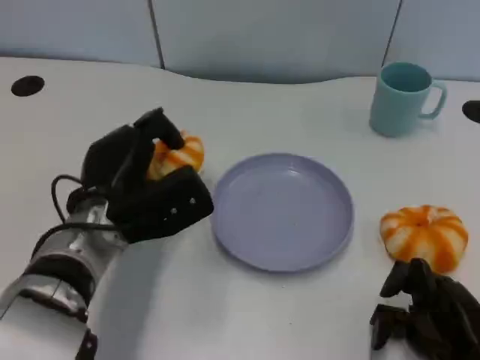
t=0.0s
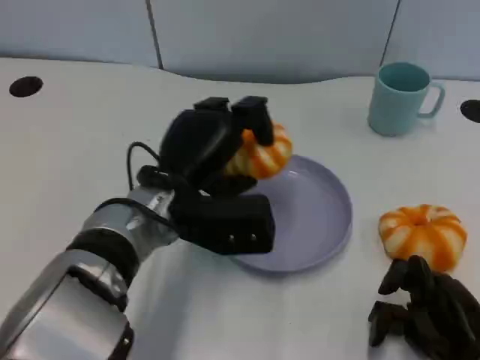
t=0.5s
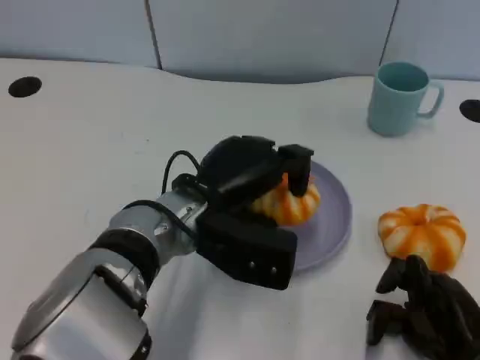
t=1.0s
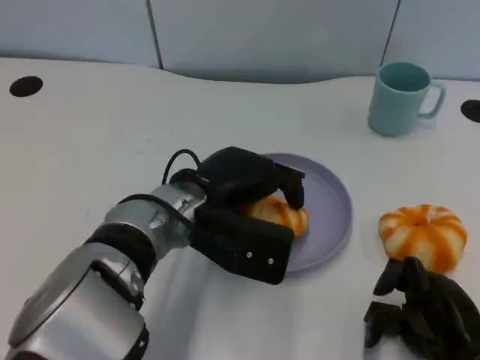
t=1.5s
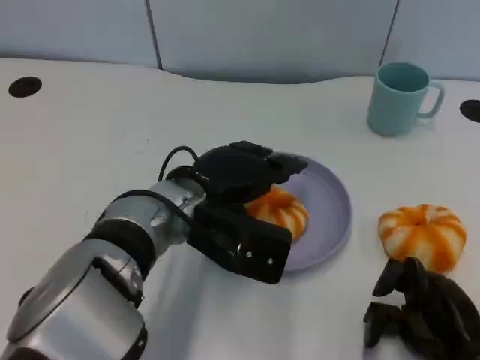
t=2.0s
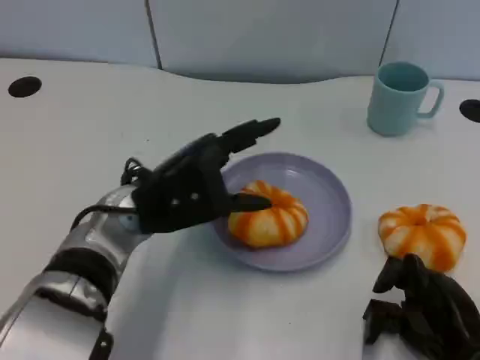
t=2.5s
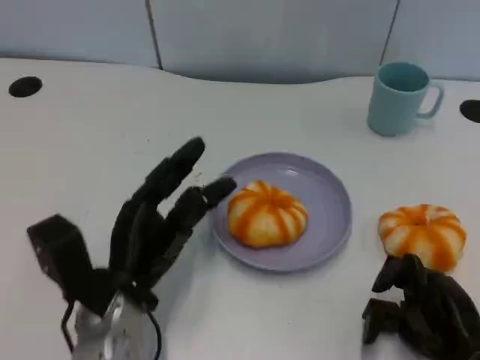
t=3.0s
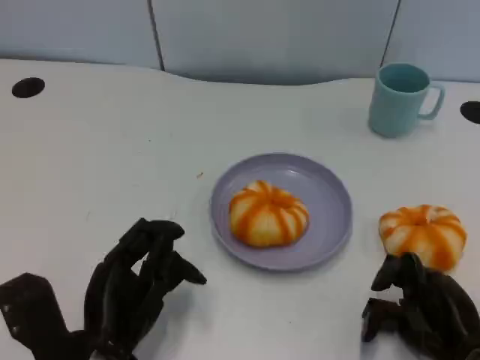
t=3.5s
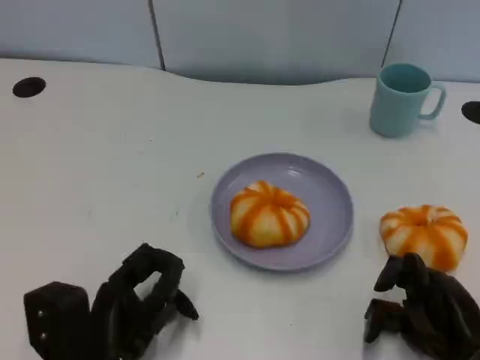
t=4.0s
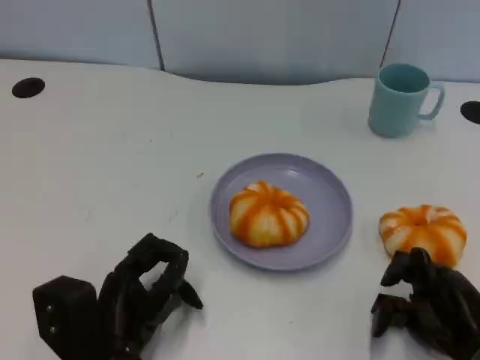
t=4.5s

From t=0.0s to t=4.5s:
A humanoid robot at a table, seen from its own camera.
Task of the whole recording: Grasp the bread from the table and place it into the plate.
From t=0.0s to t=2.0s: The left hand moves to the right, about 5 cm.
From t=2.0s to t=4.5s: The left hand travels backward, downward and to the left by about 15 cm.

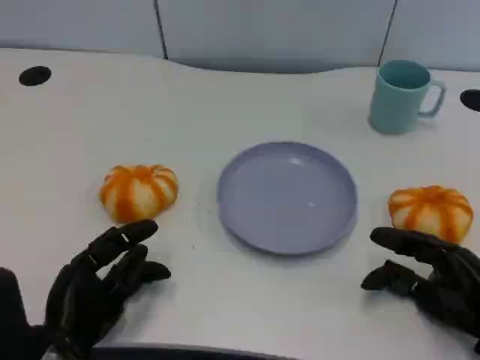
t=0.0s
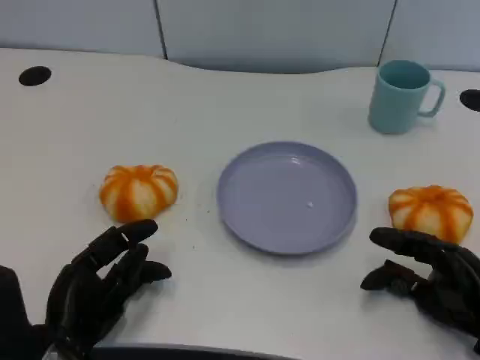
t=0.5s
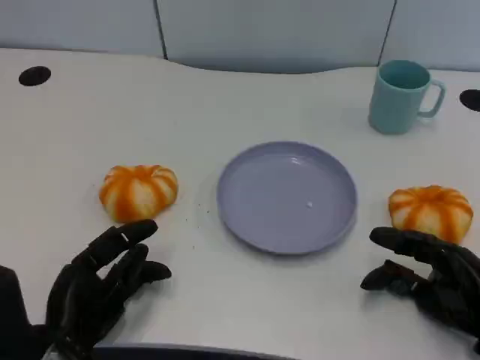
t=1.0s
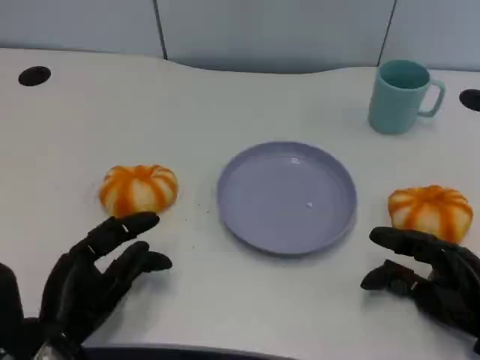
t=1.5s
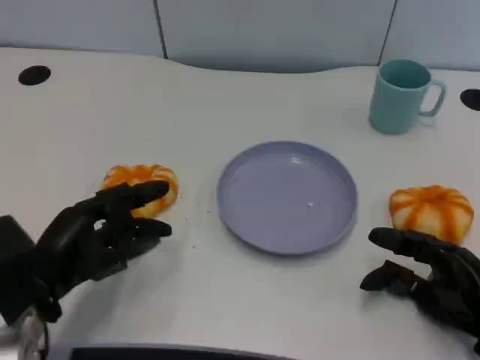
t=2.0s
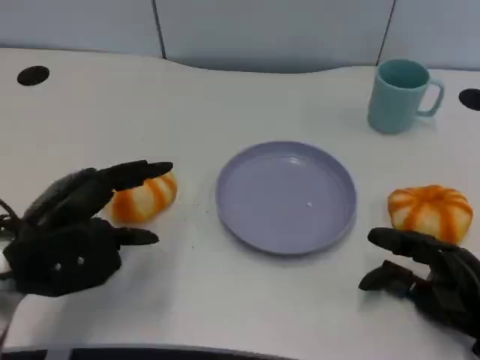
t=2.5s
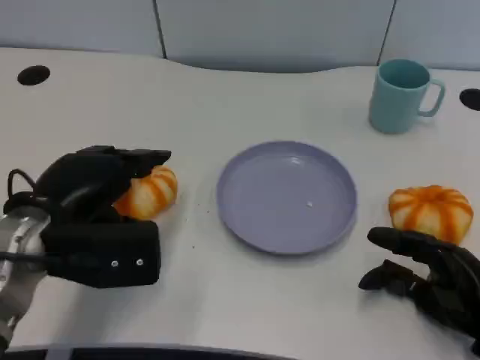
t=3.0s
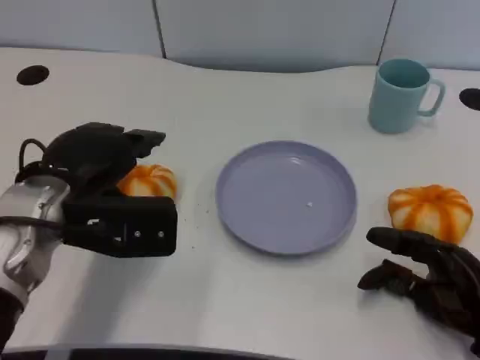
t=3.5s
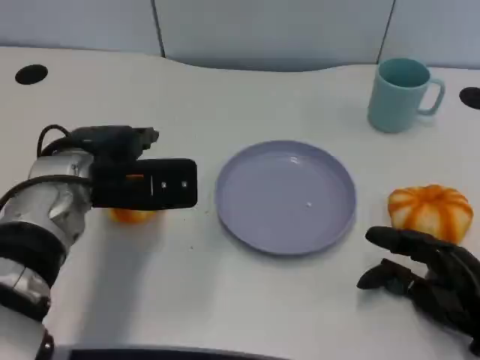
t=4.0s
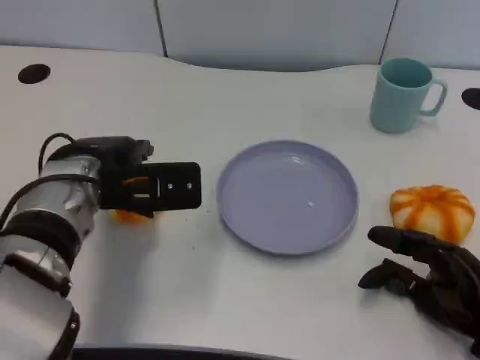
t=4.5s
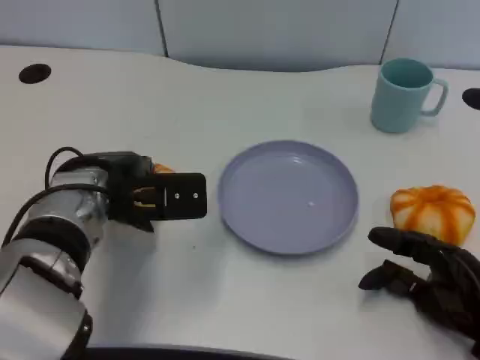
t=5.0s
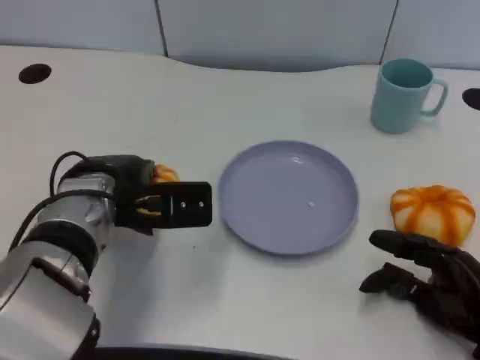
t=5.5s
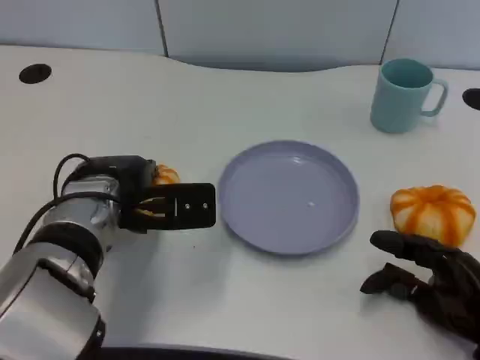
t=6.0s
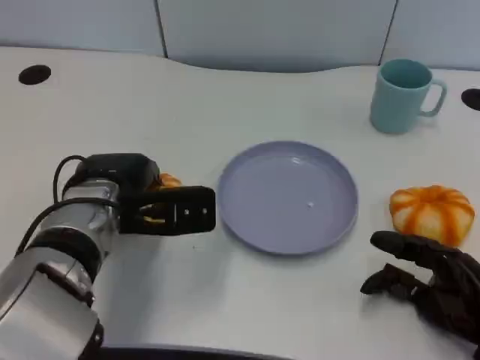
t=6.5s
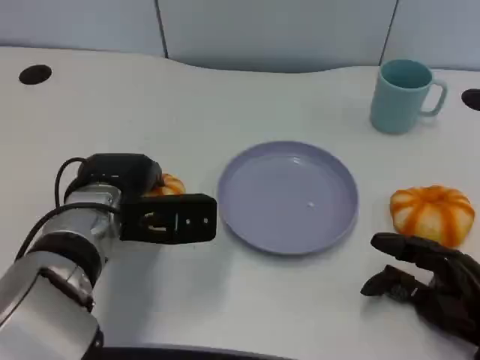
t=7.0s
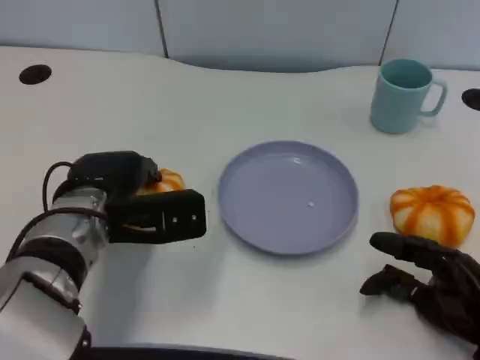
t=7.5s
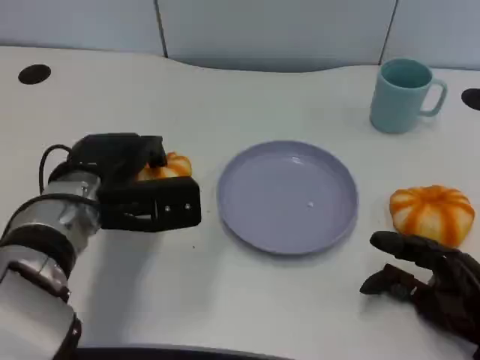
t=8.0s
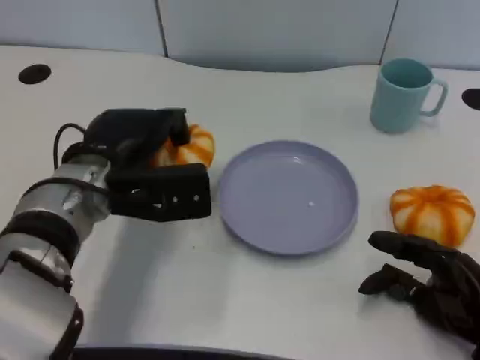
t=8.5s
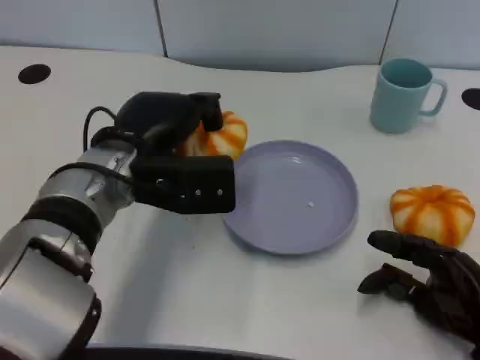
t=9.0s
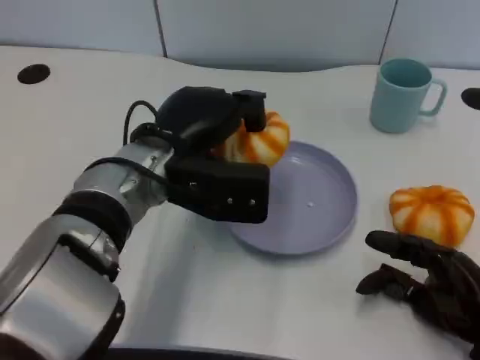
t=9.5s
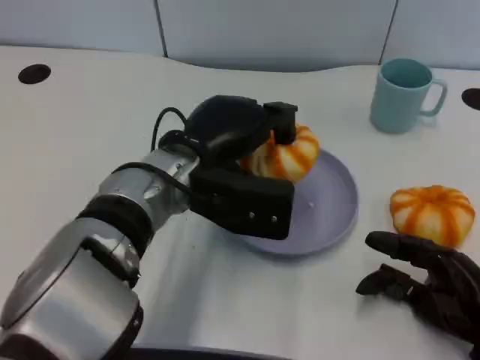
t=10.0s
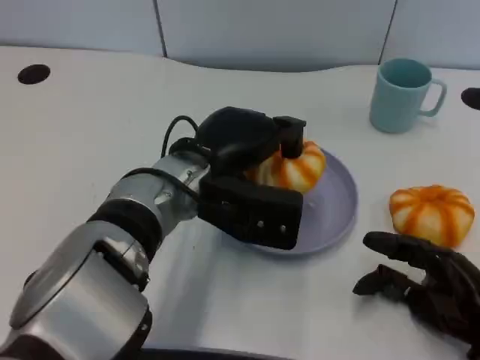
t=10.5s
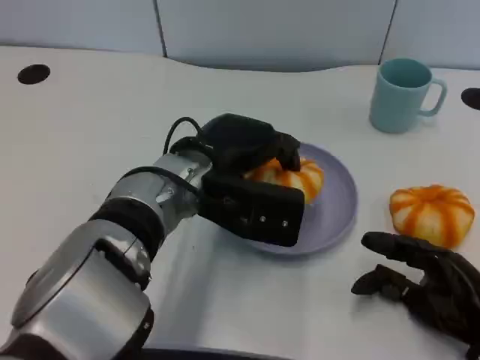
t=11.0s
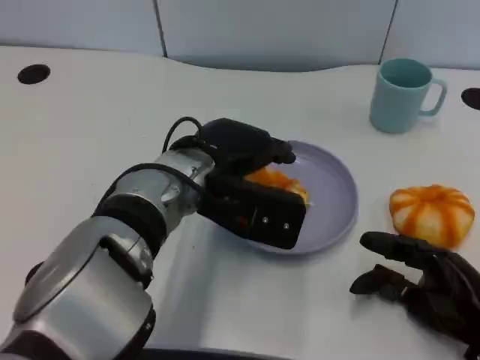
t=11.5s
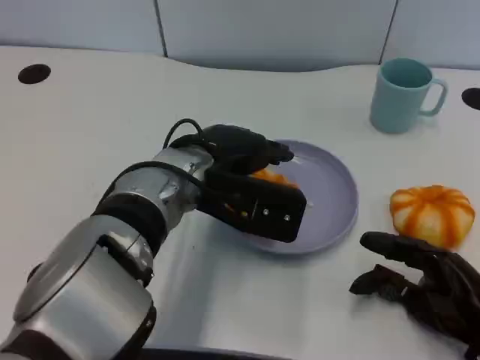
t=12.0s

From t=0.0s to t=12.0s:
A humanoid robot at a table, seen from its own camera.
Task of the whole recording: Grasp the bread from the table and place it into the plate.
From t=0.0s to t=2.0s: The left hand ends up approximately 5 cm from where it was.
From t=2.0s to t=4.0s: The left hand is displaced forward, upward and to the right by about 15 cm.
From t=4.0s to t=8.0s: The hands make only small movements.
From t=8.0s to t=10.0s: The left hand heads to the right, covering roughly 10 cm.

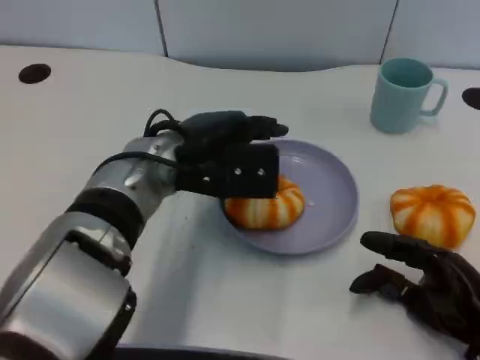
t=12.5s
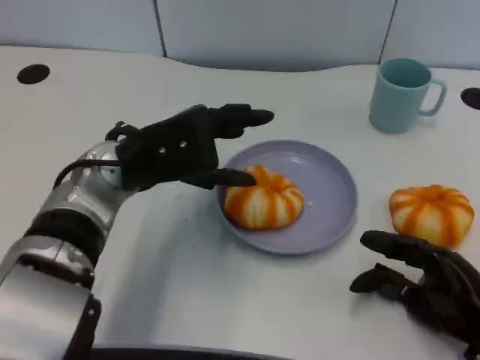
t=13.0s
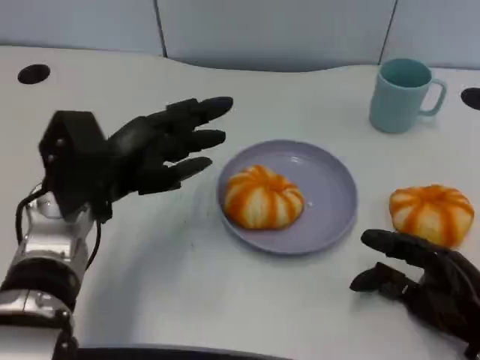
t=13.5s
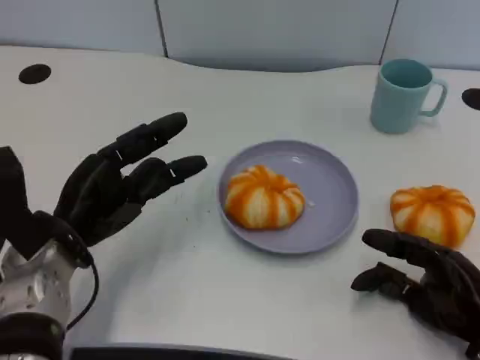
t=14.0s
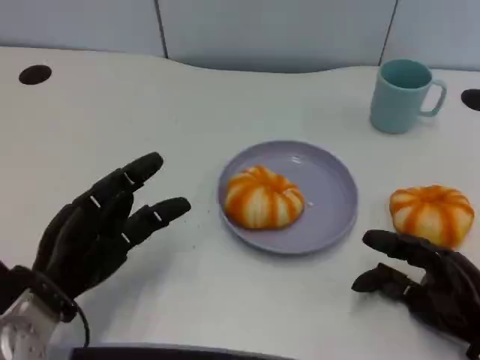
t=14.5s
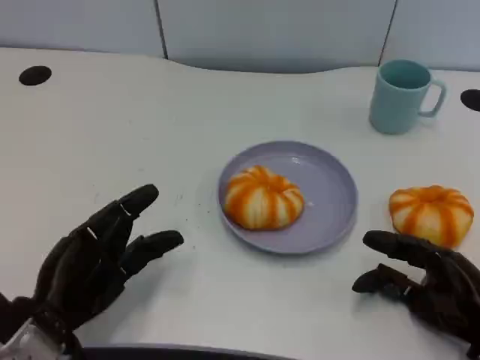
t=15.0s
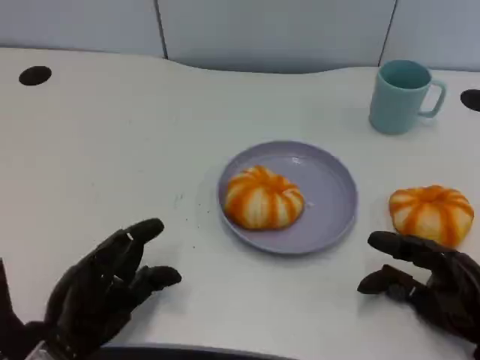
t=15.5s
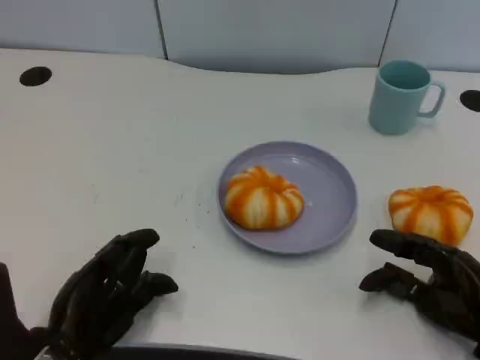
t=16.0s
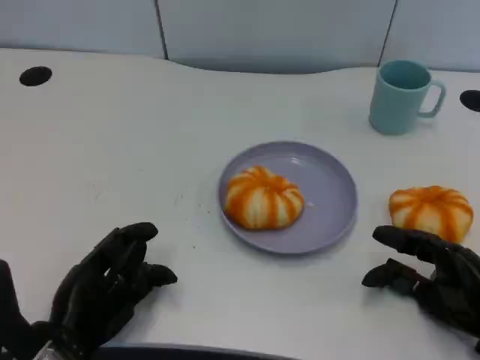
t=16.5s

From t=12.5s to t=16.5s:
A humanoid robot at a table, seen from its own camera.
Task of the whole recording: Grasp the bread from the table and place it into the plate.
From t=12.5s to t=14.5s: The left hand shifts some 20 cm to the left, downward and backward.
From t=14.5s to t=16.5s: The left hand changes place by some 5 cm.

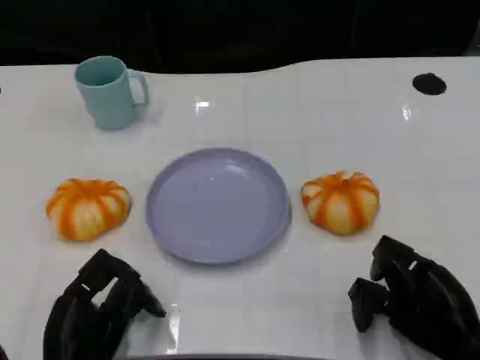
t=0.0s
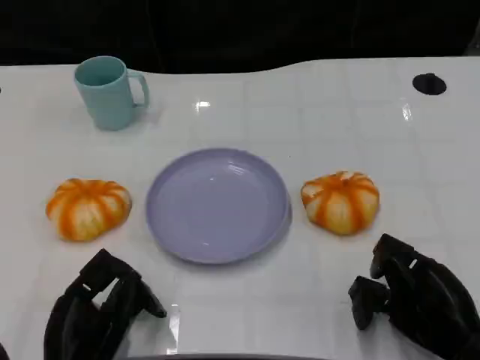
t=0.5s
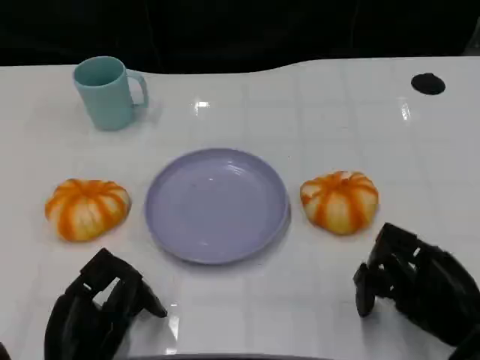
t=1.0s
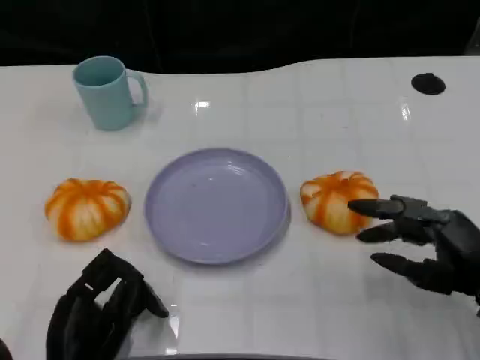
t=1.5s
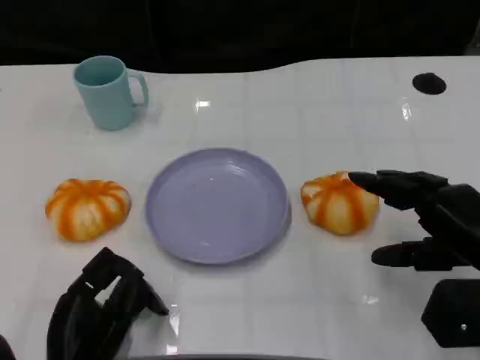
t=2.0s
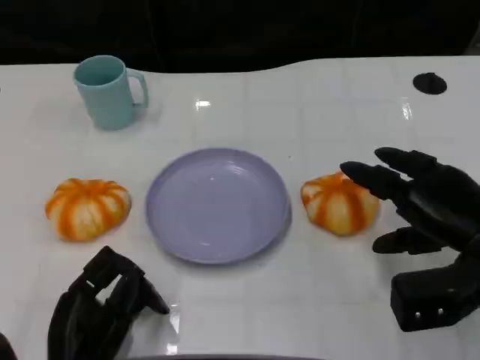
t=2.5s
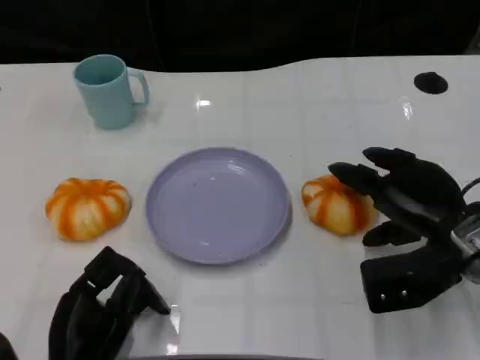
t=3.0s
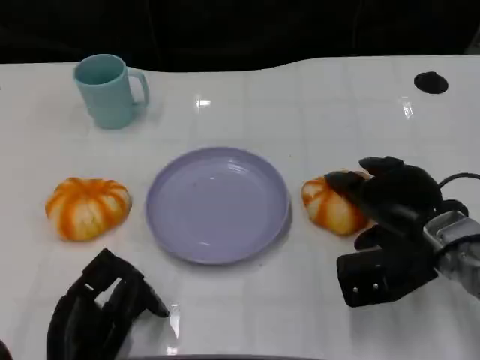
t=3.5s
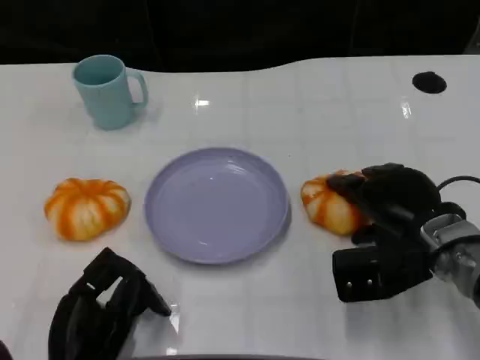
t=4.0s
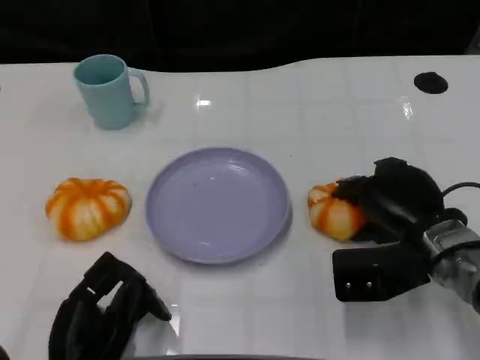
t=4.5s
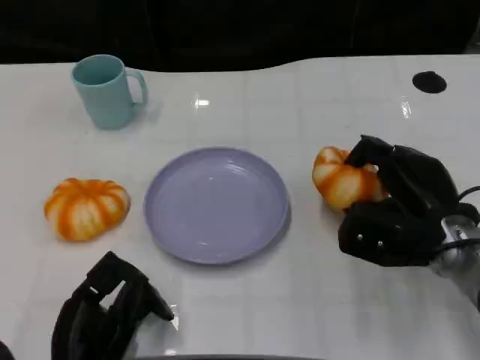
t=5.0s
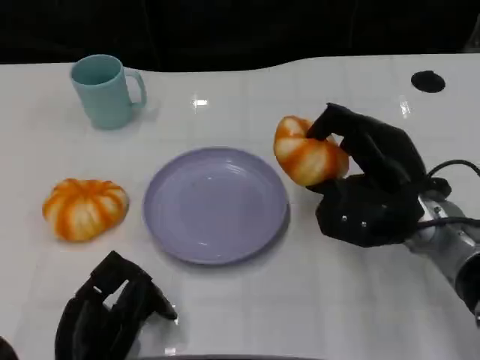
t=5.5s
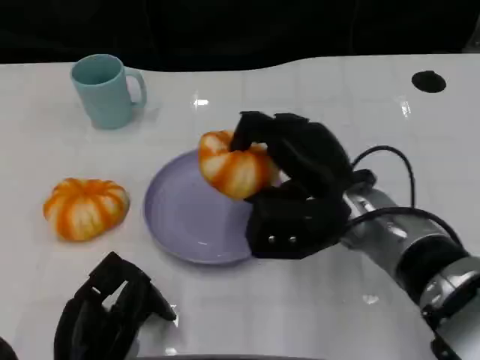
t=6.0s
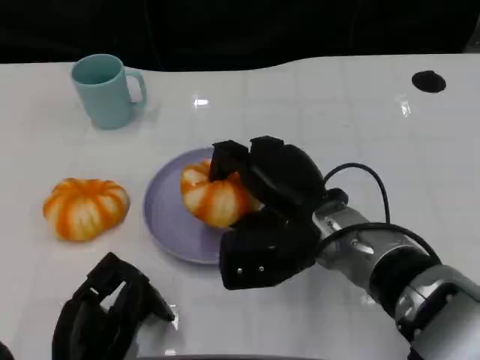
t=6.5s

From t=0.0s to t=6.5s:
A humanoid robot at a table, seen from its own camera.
Task of the whole recording: Grasp the bread from the table and place it into the plate.
From t=0.0s to t=2.0s: The right hand moves upward and forward, roughly 10 cm.
From t=2.0s to t=4.5s: The right hand moves to the left, approximately 5 cm.
From t=4.5s to t=6.5s: The right hand is displaced to the left by roughly 10 cm.
